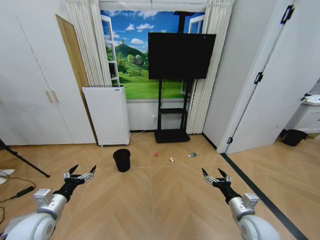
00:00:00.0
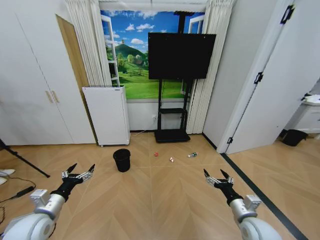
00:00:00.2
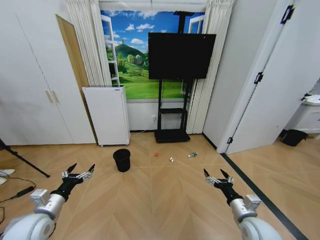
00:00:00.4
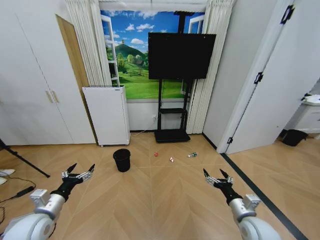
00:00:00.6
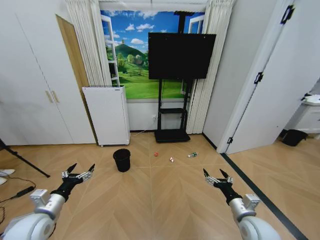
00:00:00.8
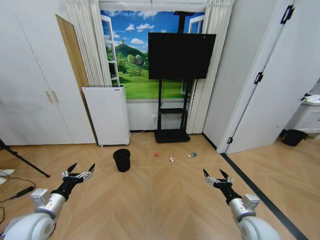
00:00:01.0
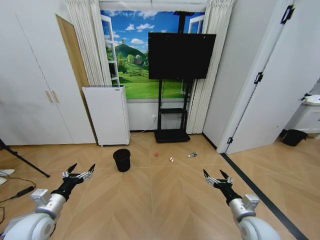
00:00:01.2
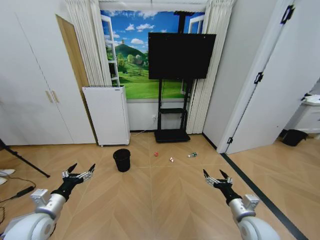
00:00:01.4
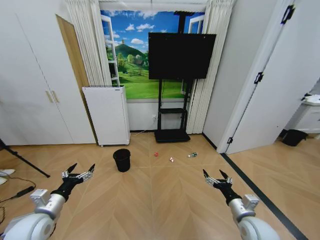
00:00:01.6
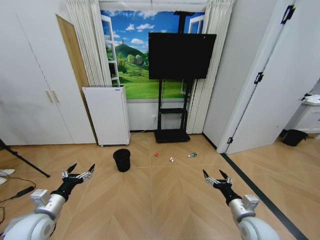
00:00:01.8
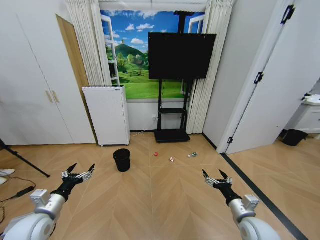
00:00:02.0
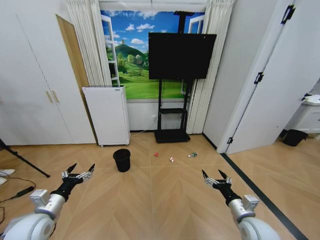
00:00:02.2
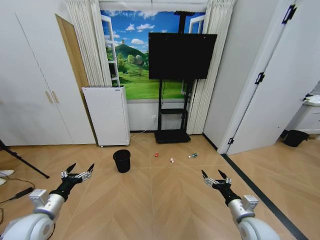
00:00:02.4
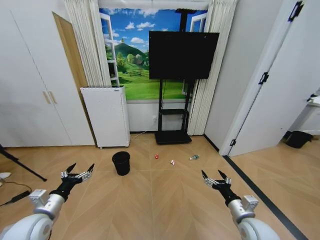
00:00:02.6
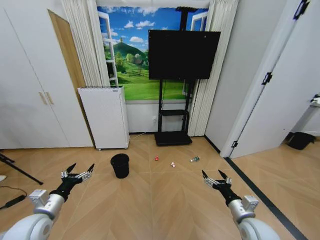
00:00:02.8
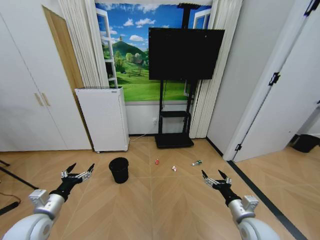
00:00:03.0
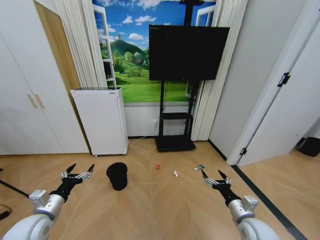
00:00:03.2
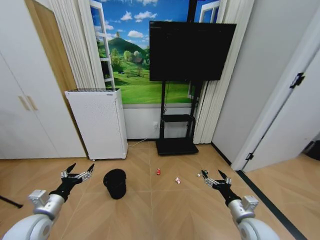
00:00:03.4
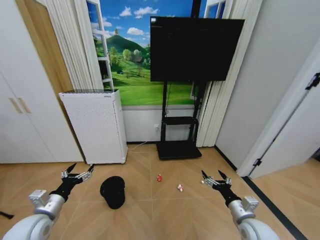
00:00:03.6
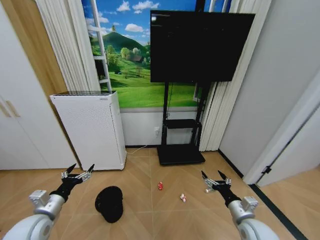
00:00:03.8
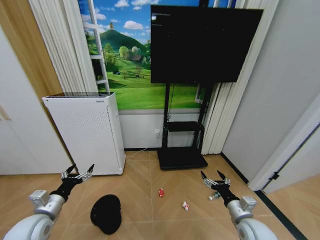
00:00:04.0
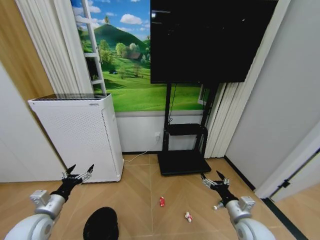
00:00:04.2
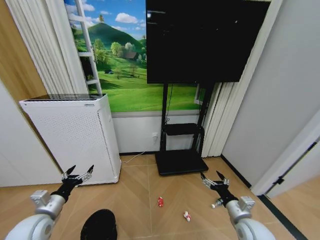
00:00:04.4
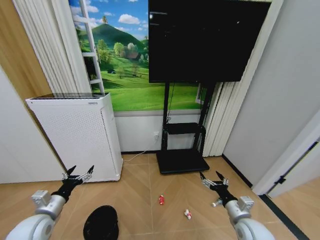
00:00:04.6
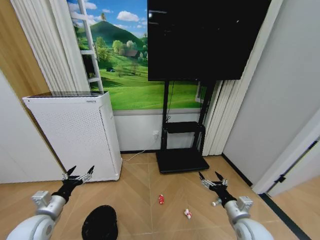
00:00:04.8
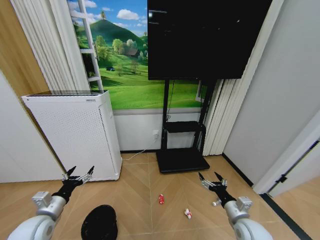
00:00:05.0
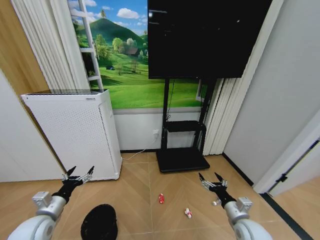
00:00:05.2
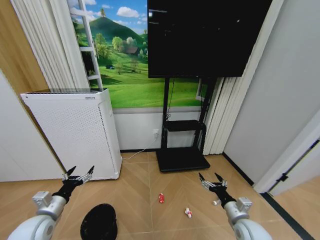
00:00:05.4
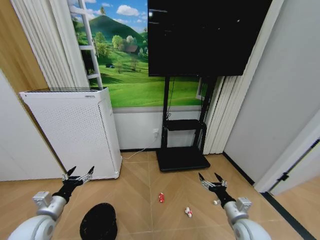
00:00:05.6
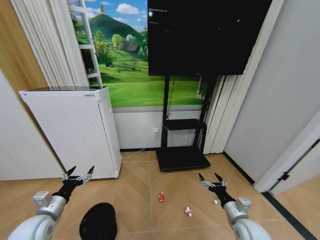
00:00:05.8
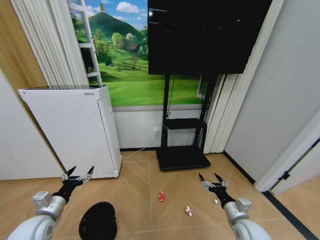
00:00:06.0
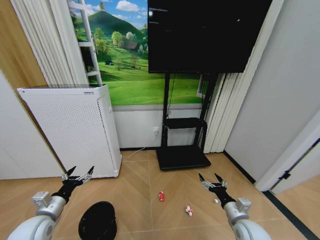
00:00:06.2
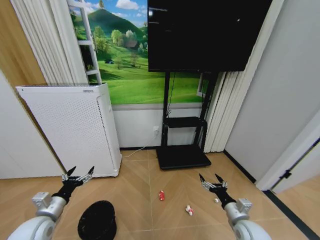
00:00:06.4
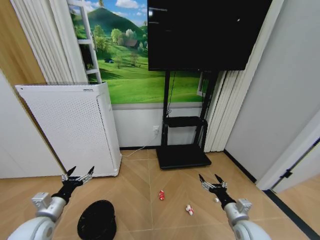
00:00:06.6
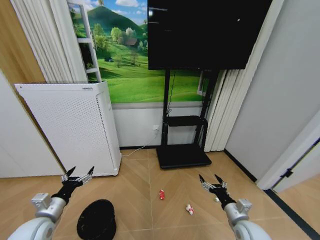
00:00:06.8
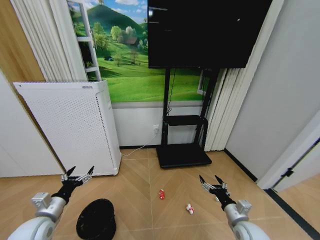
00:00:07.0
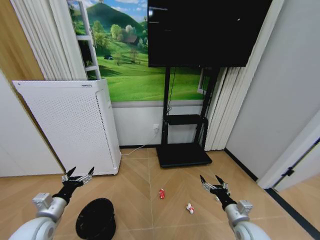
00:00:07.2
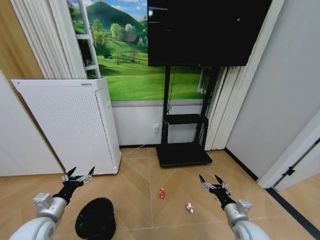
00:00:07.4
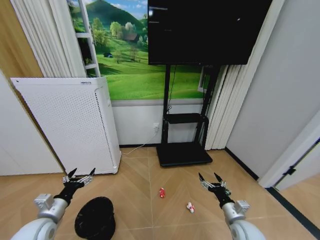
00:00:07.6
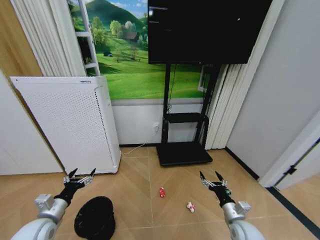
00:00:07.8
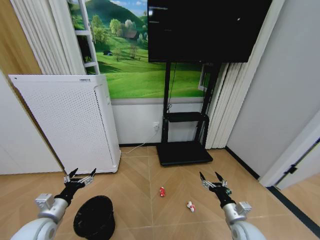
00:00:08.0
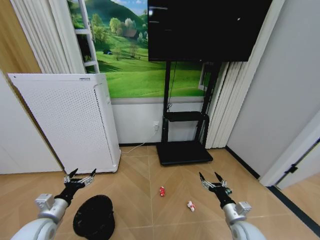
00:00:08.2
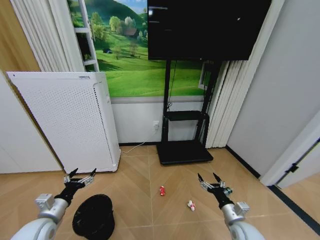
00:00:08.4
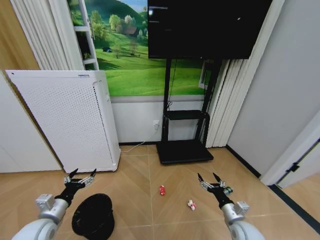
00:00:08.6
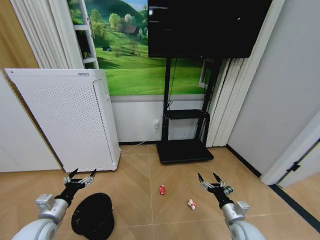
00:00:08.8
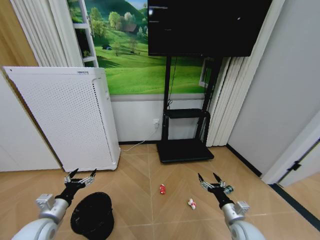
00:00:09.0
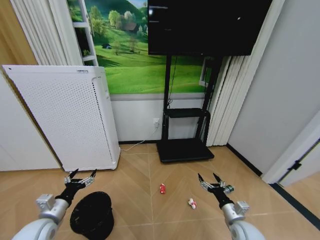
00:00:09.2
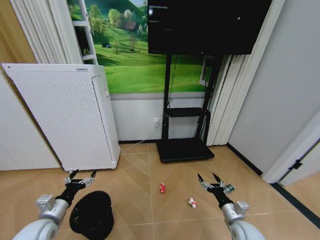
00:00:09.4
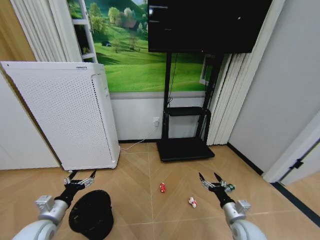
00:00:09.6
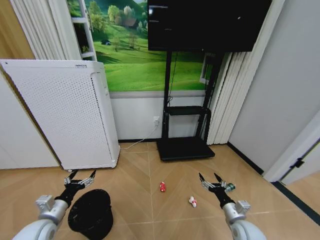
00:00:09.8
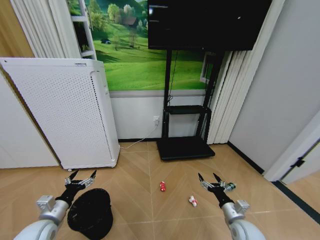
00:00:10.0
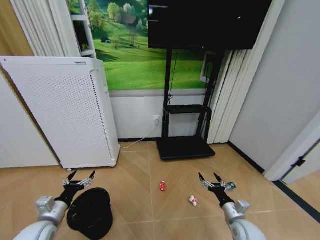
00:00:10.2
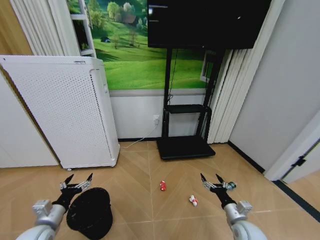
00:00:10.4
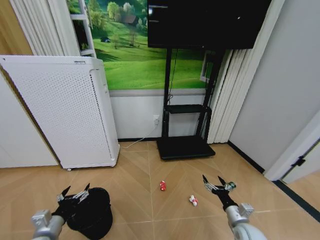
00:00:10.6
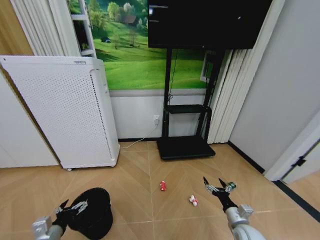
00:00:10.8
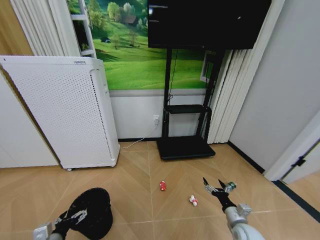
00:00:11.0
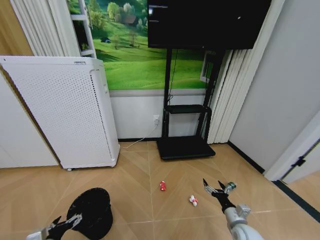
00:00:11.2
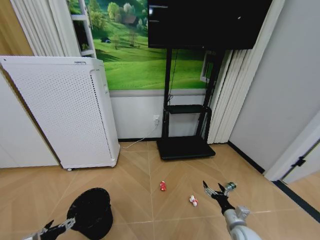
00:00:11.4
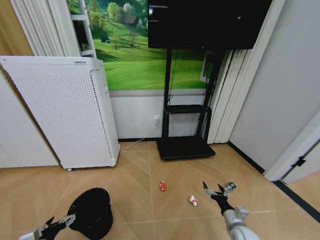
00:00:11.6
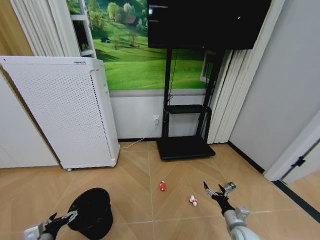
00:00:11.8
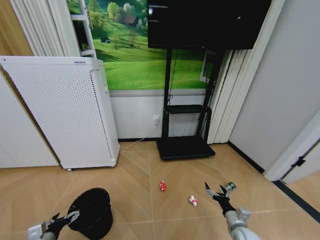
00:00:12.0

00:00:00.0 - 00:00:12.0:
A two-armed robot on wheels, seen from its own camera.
Task of the whole recording: Pick up the trash bin and place the garbage on the floor into it.
00:00:06.0 - 00:00:07.6: The grippers make only small movements.
00:00:07.6 - 00:00:09.0: Both grippers stay put.
00:00:09.0 - 00:00:10.4: The two grippers keep their place.
00:00:10.4 - 00:00:12.0: The right gripper moves approximately 5 cm. The left gripper is displaced downward by about 10 cm.

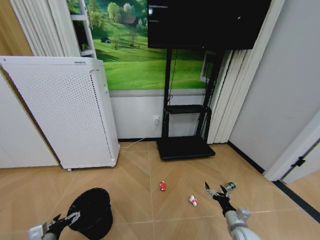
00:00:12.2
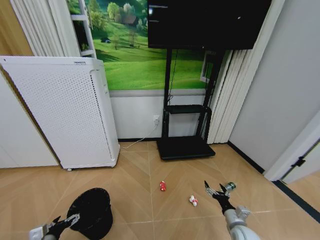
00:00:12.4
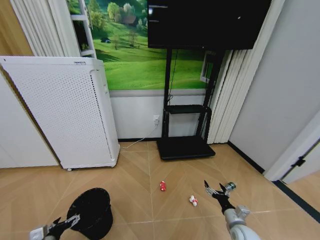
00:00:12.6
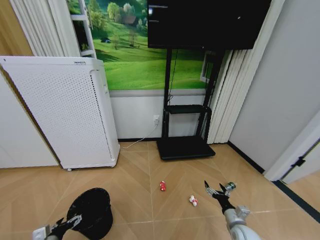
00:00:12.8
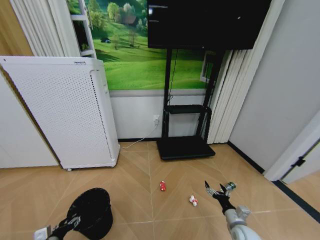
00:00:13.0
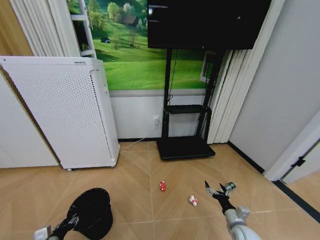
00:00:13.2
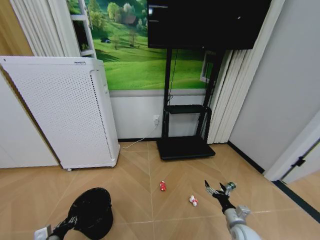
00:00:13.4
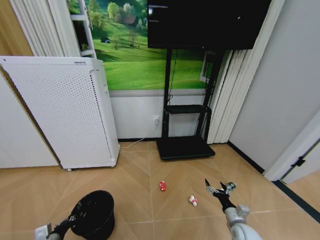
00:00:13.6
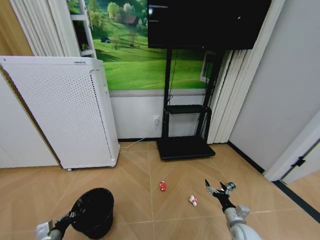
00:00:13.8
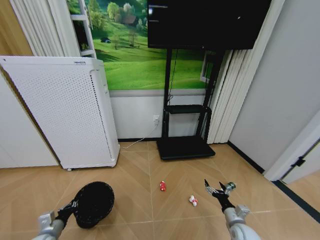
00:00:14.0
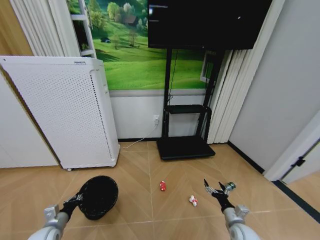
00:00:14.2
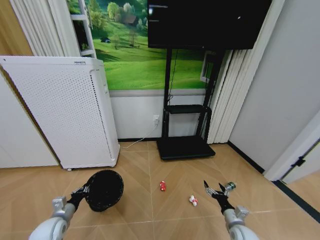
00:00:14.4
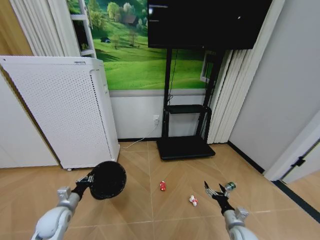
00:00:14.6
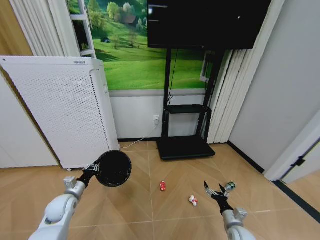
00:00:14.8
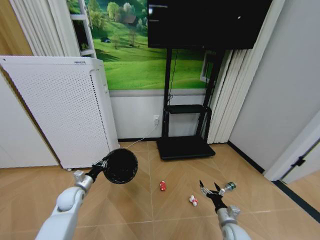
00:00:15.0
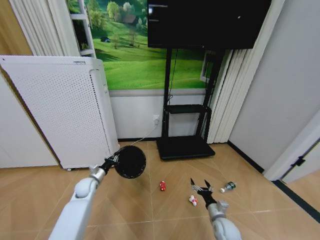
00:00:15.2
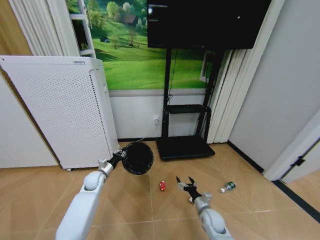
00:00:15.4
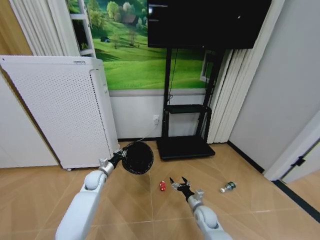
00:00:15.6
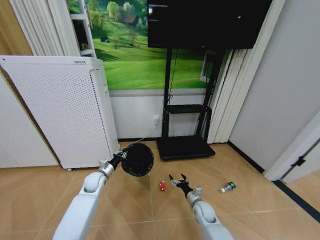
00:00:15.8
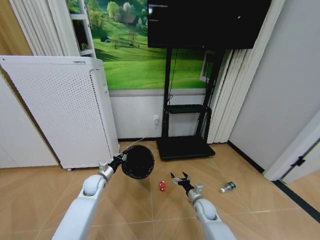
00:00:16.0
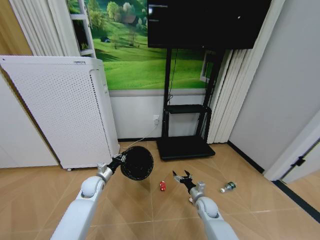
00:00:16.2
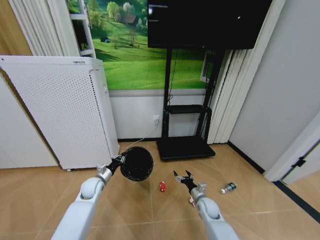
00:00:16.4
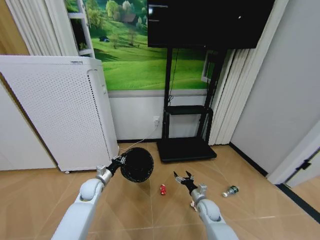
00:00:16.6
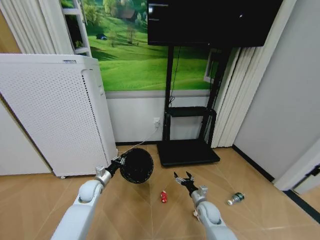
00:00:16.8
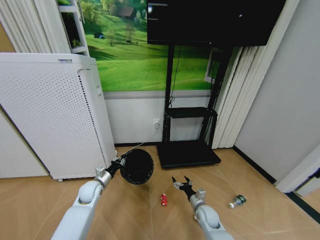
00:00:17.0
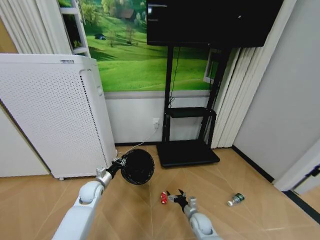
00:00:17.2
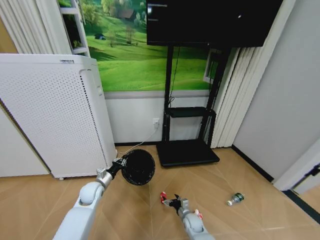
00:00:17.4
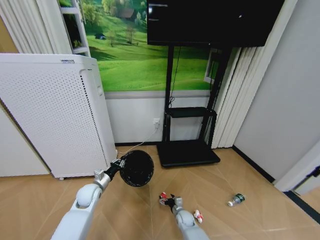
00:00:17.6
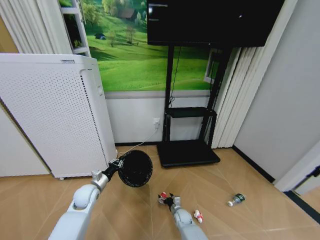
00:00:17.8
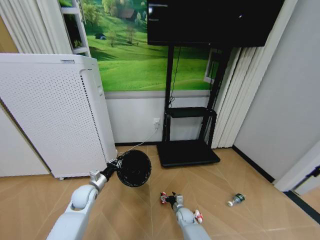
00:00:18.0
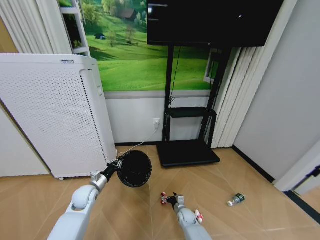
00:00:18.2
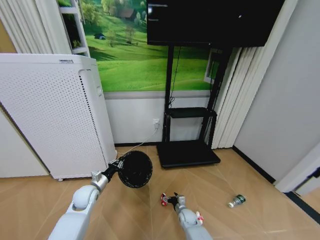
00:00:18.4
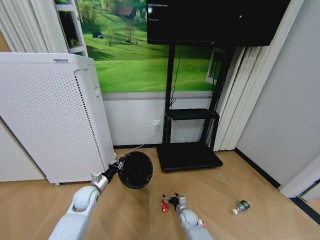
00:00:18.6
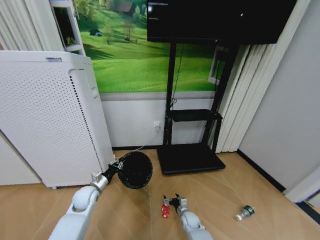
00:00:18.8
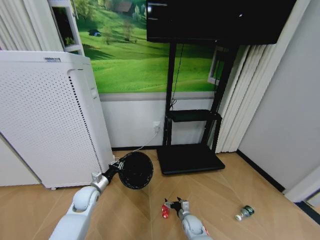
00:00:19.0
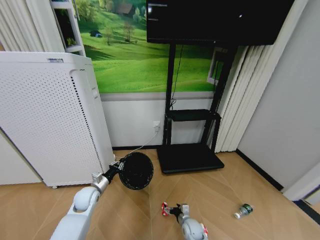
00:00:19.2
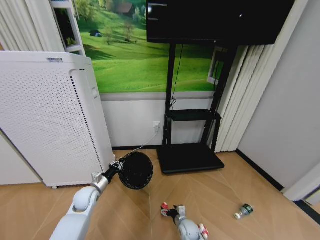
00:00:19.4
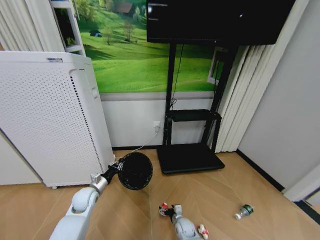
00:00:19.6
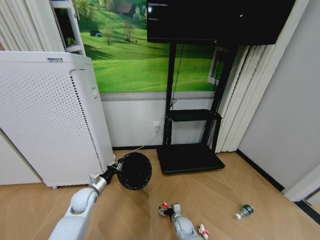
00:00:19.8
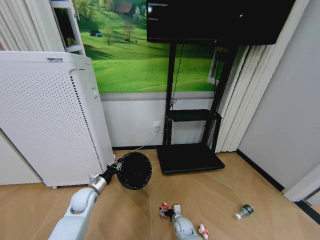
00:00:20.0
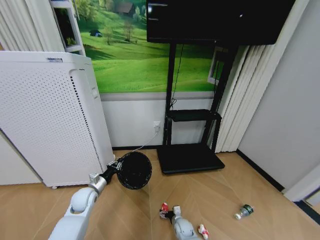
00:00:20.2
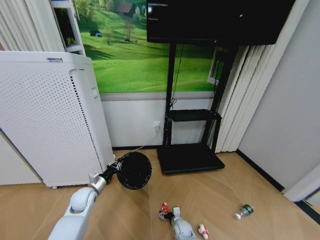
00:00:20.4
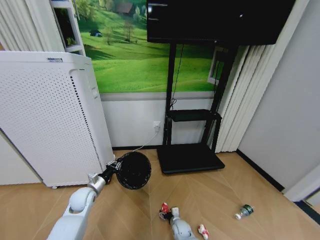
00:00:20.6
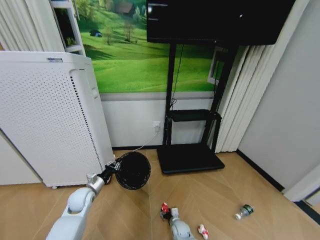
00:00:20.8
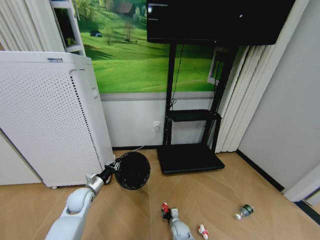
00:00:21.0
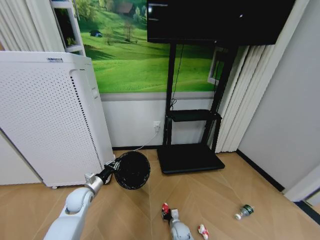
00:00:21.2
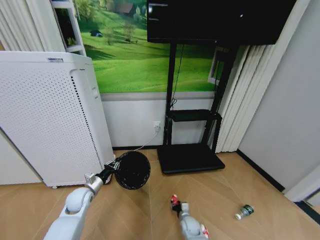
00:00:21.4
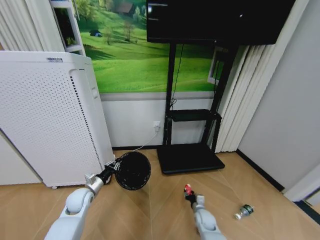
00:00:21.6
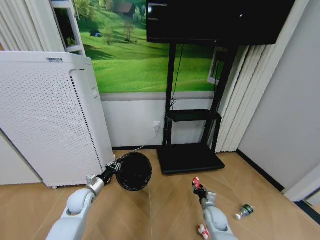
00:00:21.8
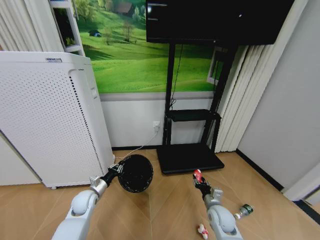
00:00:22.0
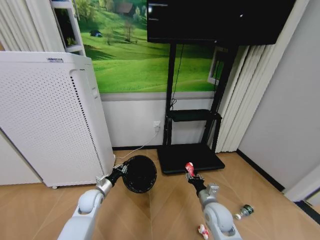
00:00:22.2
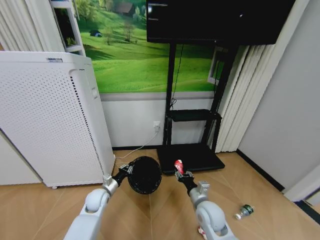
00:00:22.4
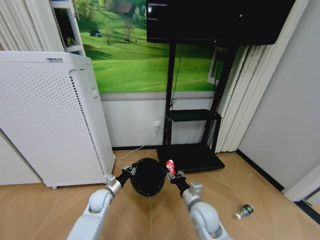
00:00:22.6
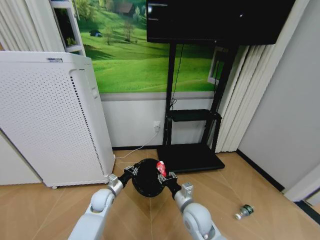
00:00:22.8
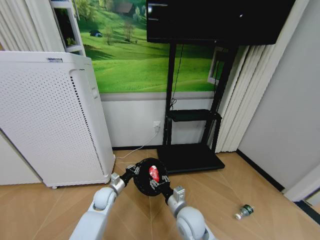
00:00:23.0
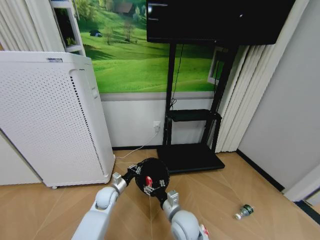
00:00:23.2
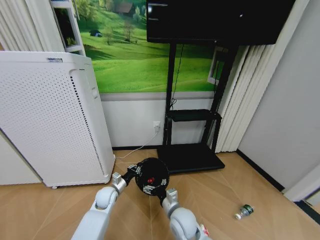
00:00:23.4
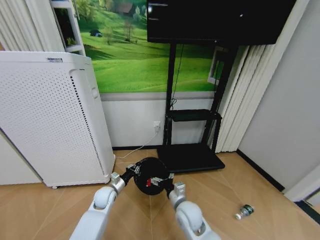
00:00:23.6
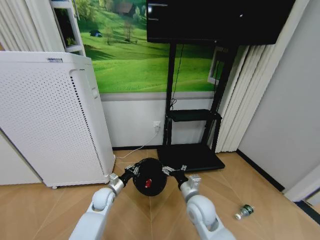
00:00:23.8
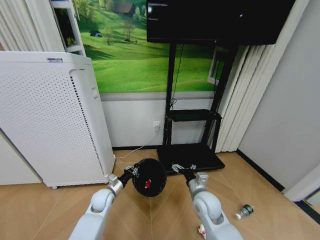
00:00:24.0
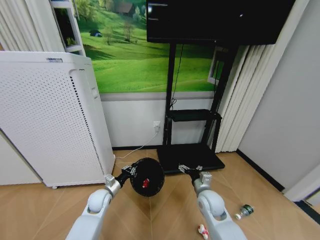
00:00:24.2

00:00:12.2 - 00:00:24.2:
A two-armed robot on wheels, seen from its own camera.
Task of the whole recording: Pick up the trash bin and place the garbage on the floor into it.
00:00:12.2 - 00:00:13.8: The left gripper closes its fingers.
00:00:13.8 - 00:00:15.2: The left gripper heads forward, covering roughly 25 cm, while the right gripper goes about 5 cm to the left.
00:00:15.2 - 00:00:16.6: The right gripper goes about 5 cm forward.
00:00:16.6 - 00:00:18.2: The right gripper heads downward and to the left, covering some 15 cm.
00:00:18.2 - 00:00:19.8: The right gripper ends up roughly 5 cm from where it was.
00:00:19.8 - 00:00:21.2: The right gripper closes its fingers.
00:00:21.2 - 00:00:22.6: The right gripper is displaced upward by about 30 cm, while the left gripper is displaced to the right by approximately 10 cm.
00:00:22.6 - 00:00:24.2: The right gripper heads to the right and forward, covering approximately 10 cm, and opens its fingers.
